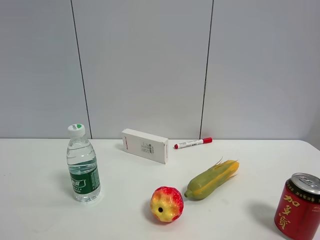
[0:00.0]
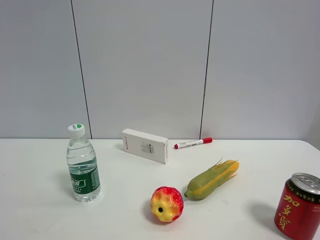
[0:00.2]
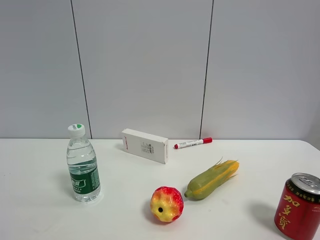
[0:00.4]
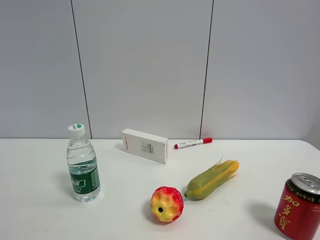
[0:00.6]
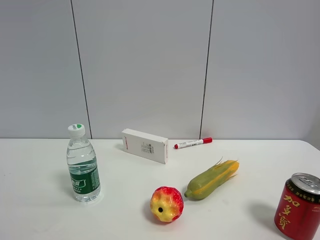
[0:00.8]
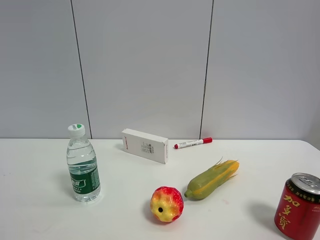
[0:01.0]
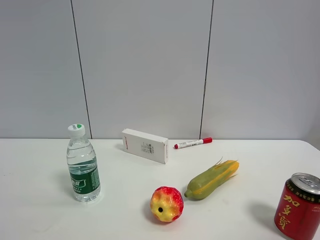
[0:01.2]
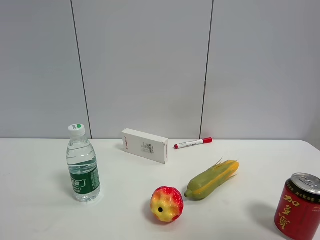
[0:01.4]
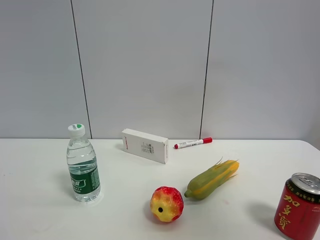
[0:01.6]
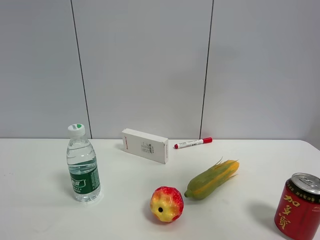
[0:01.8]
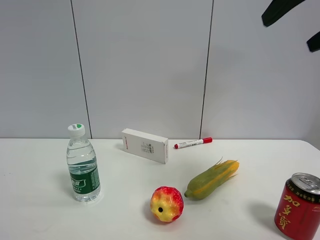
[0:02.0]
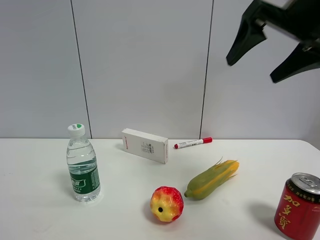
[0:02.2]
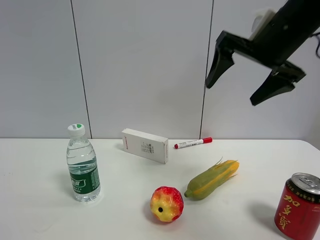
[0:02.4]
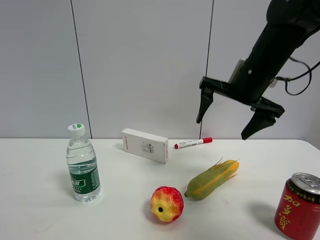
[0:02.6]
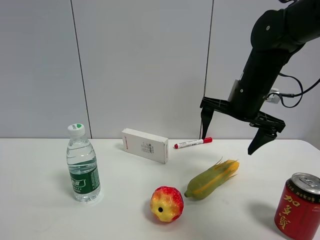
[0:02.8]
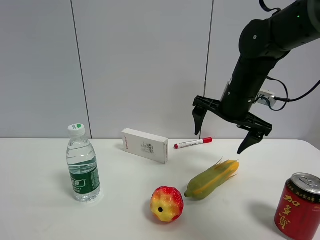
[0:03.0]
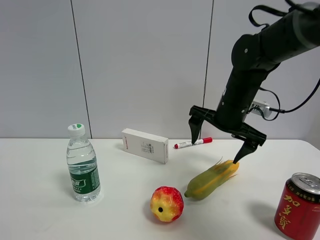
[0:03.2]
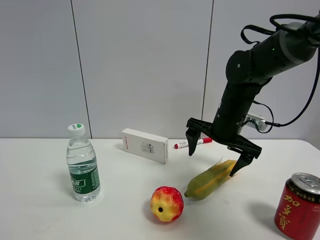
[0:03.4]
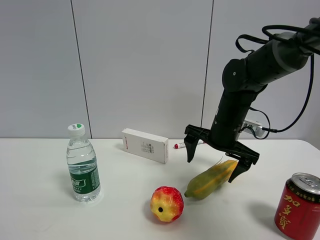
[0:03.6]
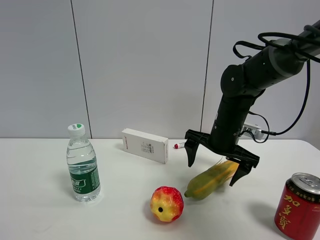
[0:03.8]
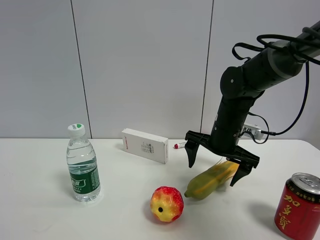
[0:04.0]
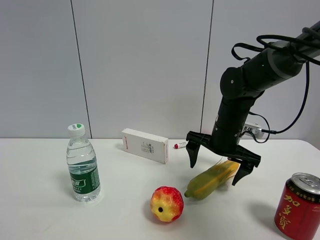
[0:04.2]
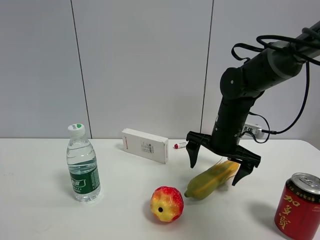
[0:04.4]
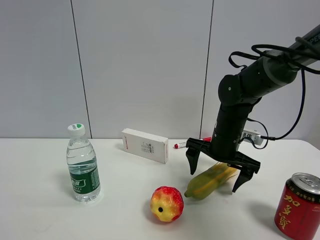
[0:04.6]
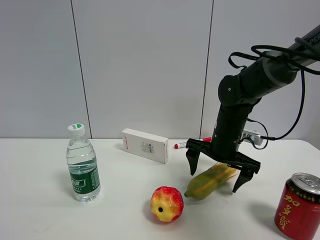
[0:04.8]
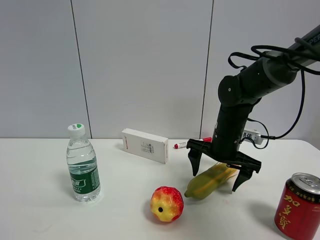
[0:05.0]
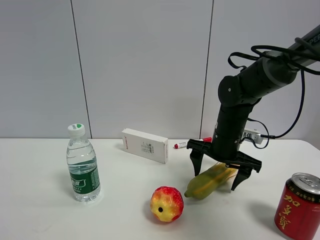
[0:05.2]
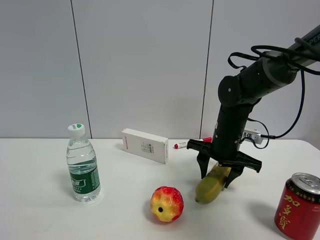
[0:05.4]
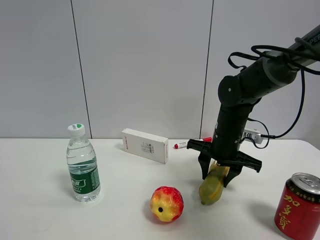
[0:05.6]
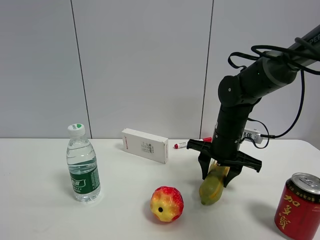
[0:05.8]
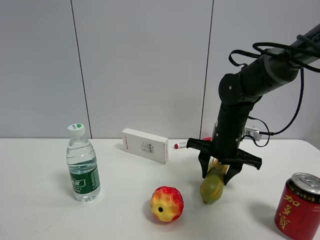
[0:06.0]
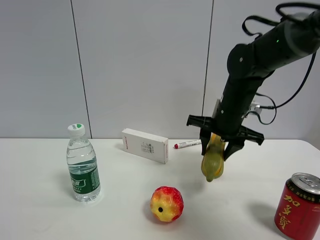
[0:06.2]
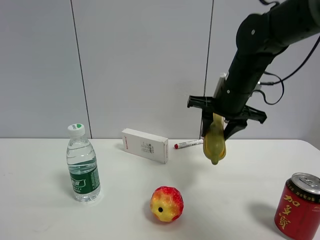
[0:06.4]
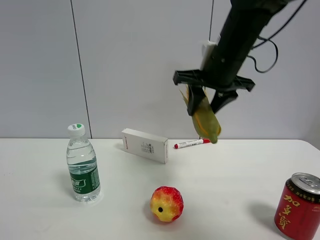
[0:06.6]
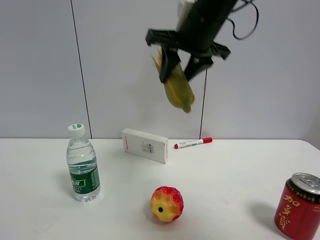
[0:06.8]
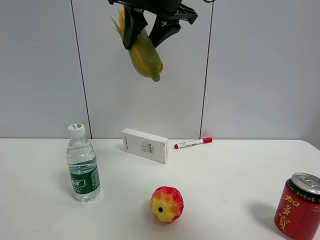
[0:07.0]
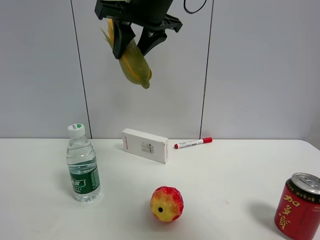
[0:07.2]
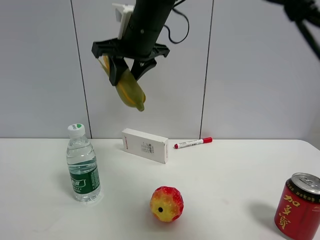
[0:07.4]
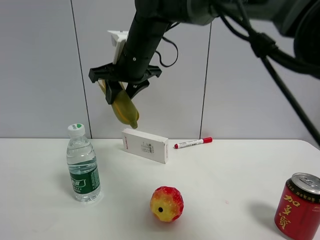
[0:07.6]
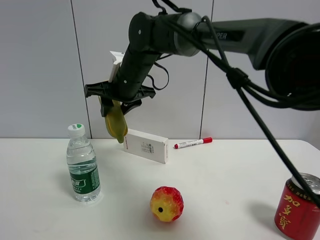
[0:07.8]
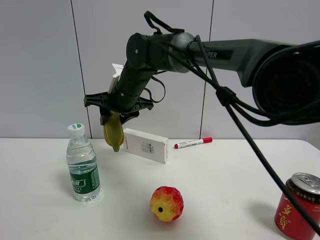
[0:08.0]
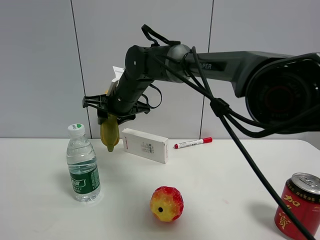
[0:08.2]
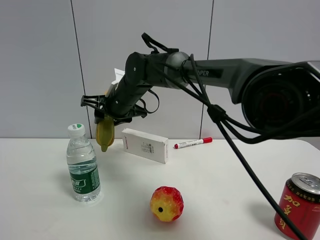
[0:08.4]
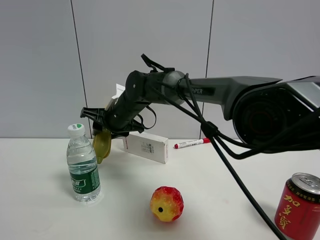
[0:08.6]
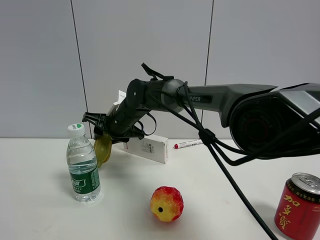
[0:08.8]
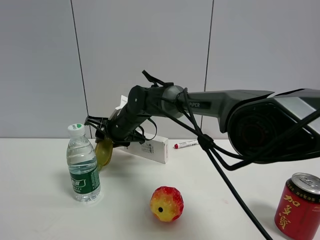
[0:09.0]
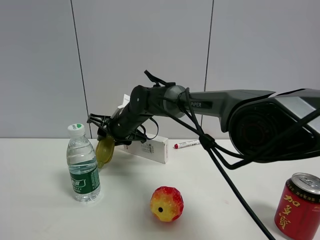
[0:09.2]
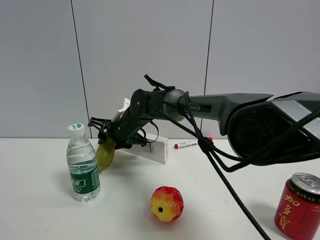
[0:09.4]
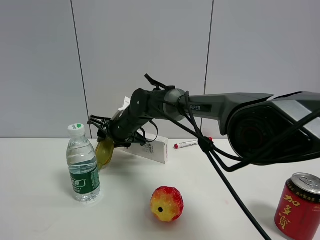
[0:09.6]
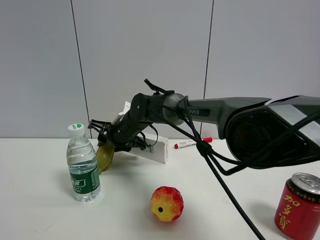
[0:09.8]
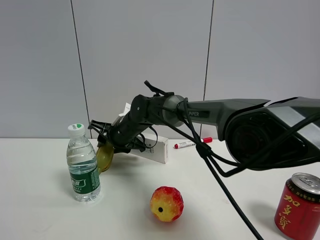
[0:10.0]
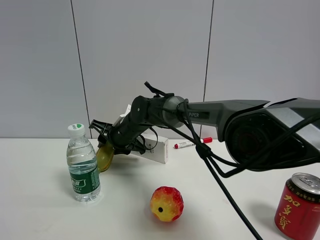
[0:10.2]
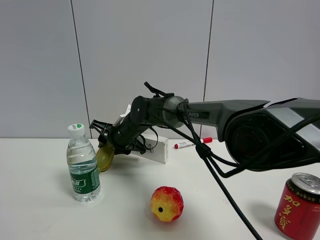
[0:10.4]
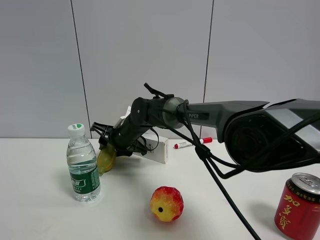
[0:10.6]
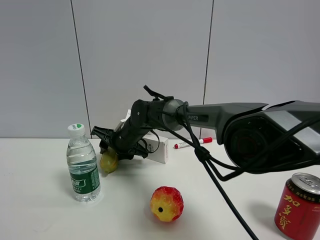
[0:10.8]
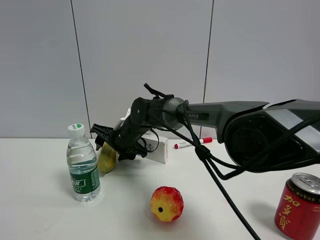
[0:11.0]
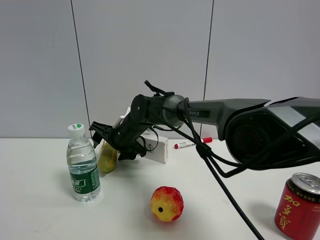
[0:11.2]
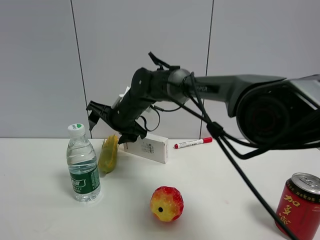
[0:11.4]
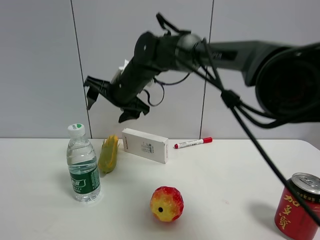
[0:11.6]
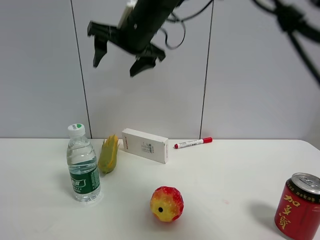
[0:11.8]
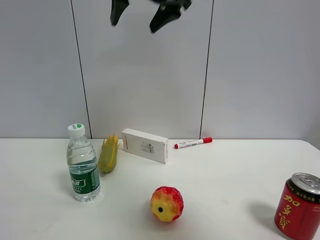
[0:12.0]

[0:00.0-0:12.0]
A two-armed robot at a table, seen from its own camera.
Task of the whole recording: the gripper move the object.
Step, 0:00.0 to 0:05.6: Grasp the corn with the right gripper.
Step, 0:05.8 to 0:11.2: Place the corn on the table with the right gripper.
0:00.0 to 0:01.6: The right gripper is displaced upward and forward by some 20 cm.
0:01.6 to 0:03.0: The right gripper goes approximately 35 cm forward and downward.
0:03.0 to 0:04.4: The right gripper shifts about 5 cm downward.
0:04.4 to 0:06.0: The right gripper closes.
0:06.0 to 0:07.6: The right gripper heads to the left and upward, covering approximately 25 cm.
0:07.6 to 0:09.0: The right gripper moves downward, approximately 15 cm.
0:09.0 to 0:10.4: There are only small adjustments of the grippers.
0:10.4 to 0:12.0: The right gripper is displaced upward by roughly 35 cm, and opens.

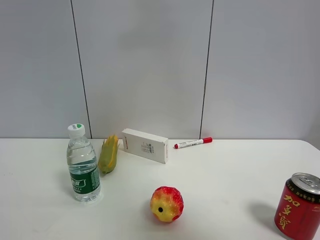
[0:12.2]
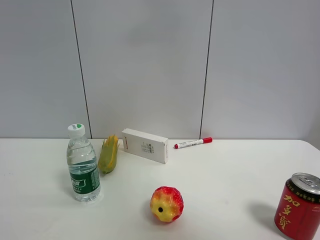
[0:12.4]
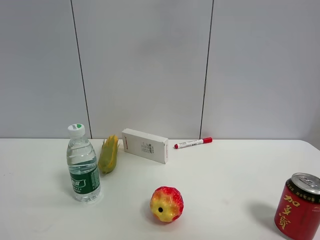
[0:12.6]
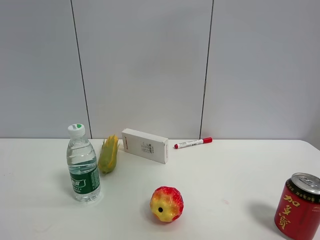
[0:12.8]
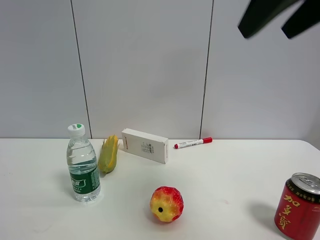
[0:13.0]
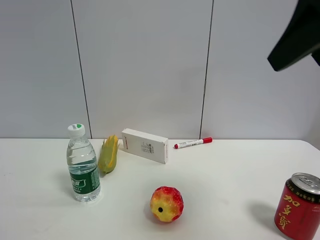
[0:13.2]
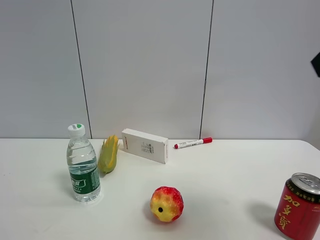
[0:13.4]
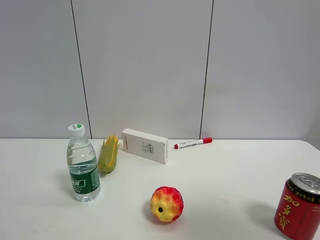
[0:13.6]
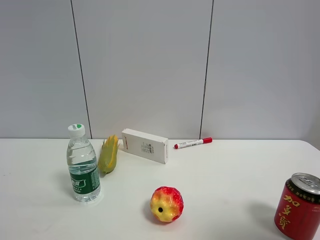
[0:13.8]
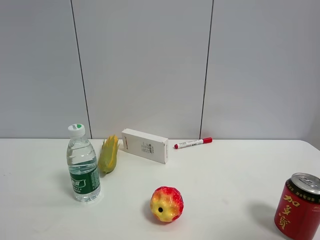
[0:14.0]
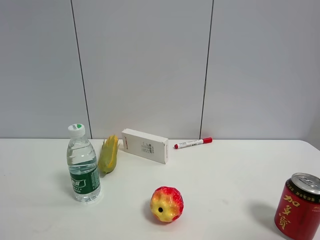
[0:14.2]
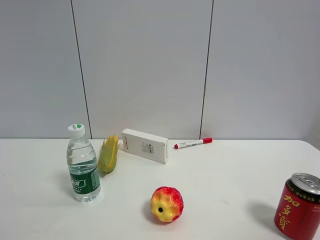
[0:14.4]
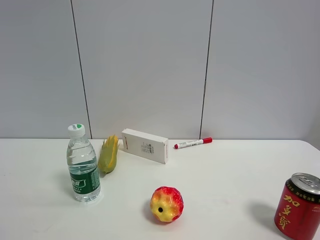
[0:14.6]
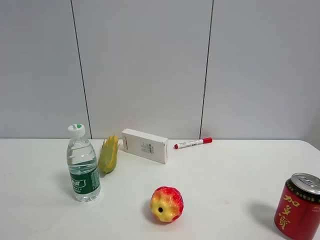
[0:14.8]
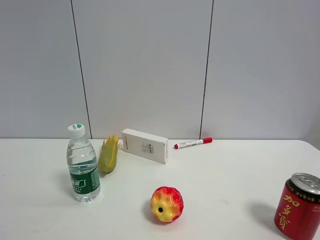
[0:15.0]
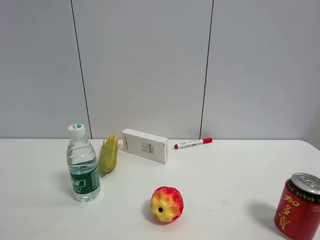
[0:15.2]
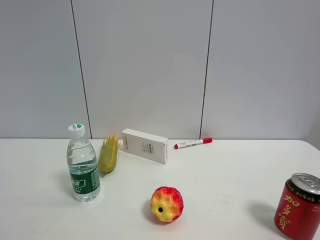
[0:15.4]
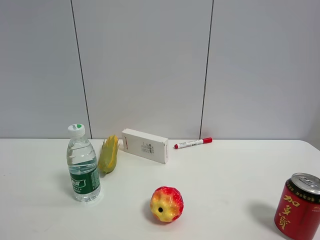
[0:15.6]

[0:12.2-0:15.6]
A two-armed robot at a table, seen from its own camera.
Task of the whole recording: the gripper move the object.
0:12.2 to 0:13.8: The right gripper heads backward, to the right and downward, covering roughly 35 cm.
0:13.8 to 0:15.6: The right gripper heads backward and downward, covering some 10 cm.

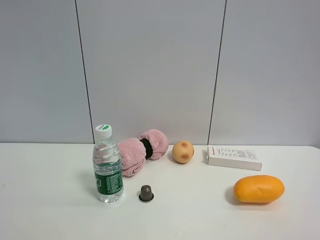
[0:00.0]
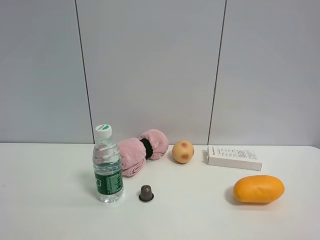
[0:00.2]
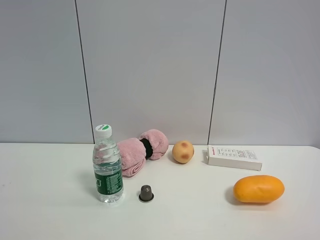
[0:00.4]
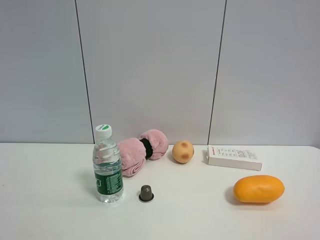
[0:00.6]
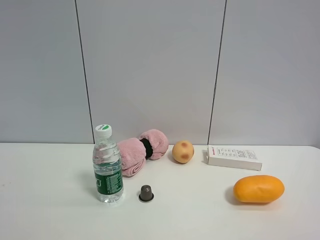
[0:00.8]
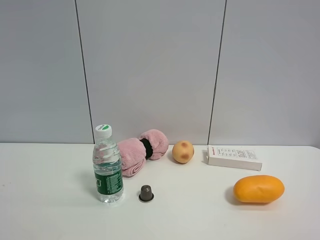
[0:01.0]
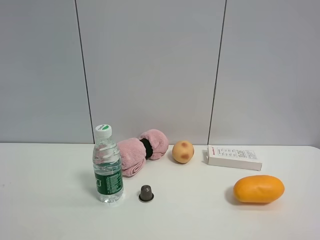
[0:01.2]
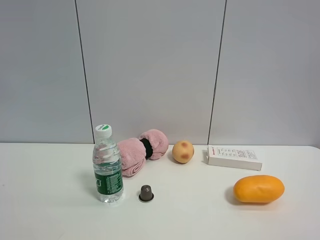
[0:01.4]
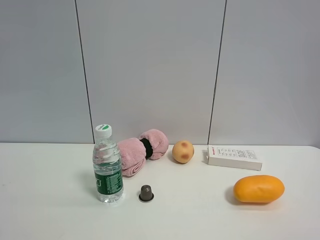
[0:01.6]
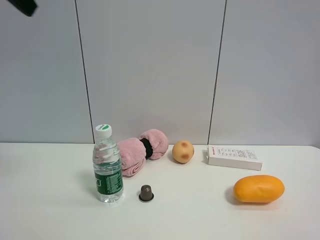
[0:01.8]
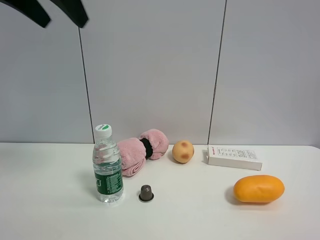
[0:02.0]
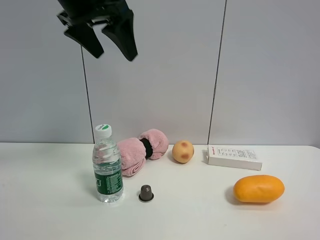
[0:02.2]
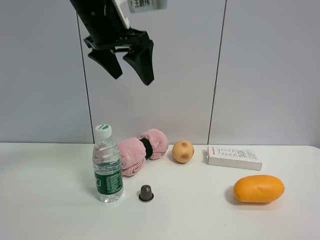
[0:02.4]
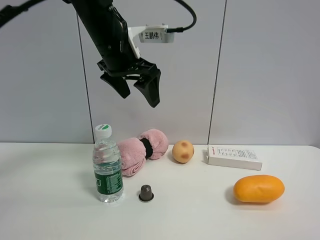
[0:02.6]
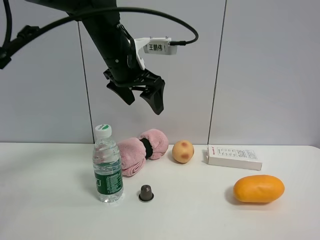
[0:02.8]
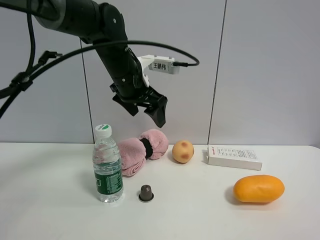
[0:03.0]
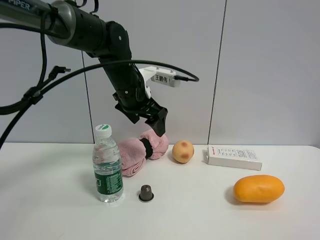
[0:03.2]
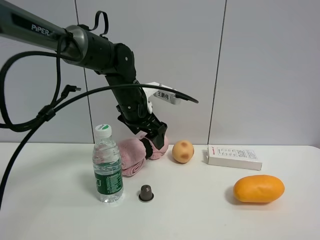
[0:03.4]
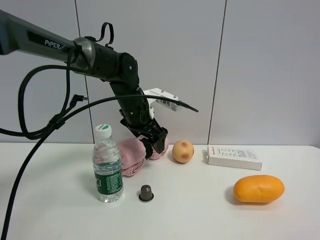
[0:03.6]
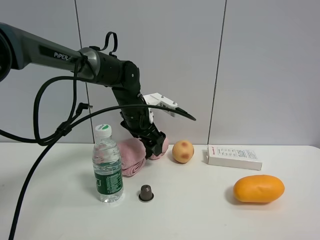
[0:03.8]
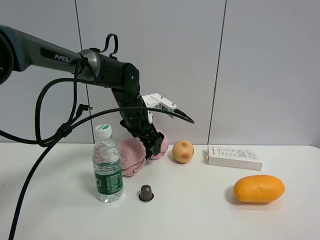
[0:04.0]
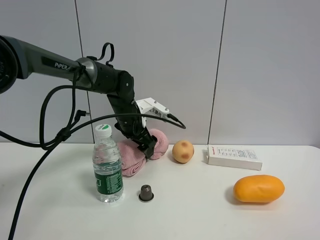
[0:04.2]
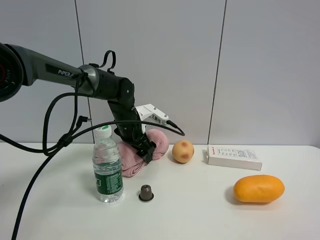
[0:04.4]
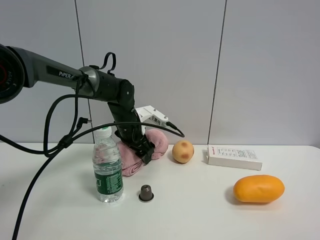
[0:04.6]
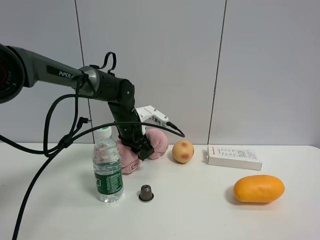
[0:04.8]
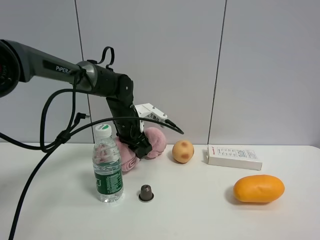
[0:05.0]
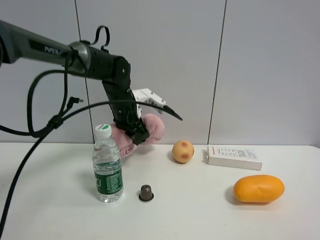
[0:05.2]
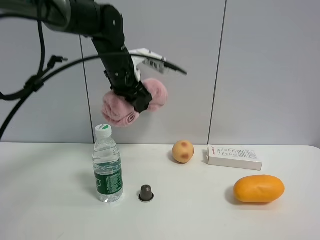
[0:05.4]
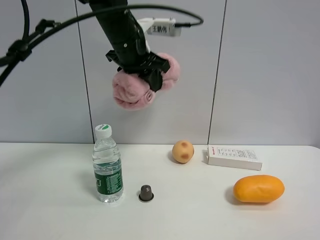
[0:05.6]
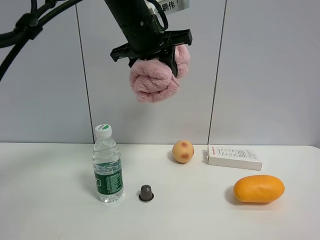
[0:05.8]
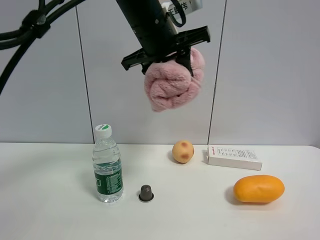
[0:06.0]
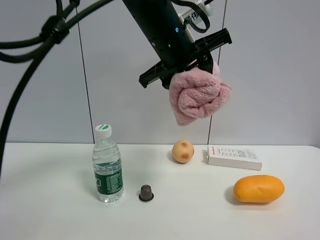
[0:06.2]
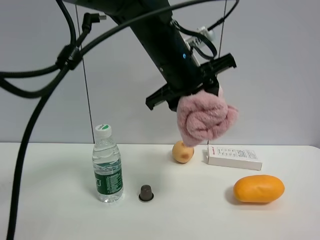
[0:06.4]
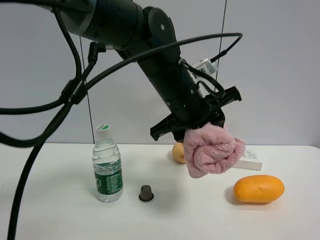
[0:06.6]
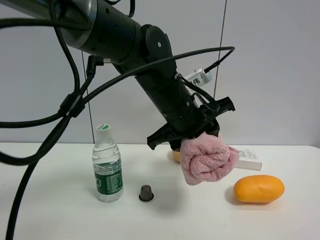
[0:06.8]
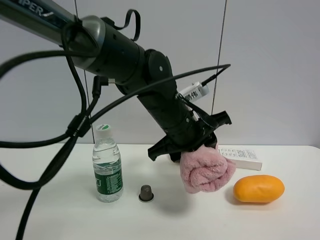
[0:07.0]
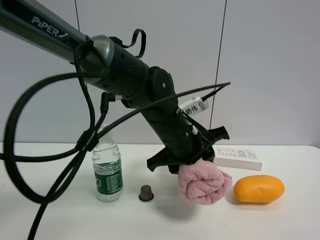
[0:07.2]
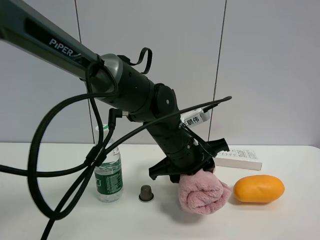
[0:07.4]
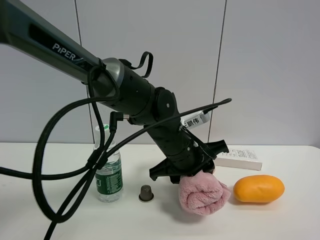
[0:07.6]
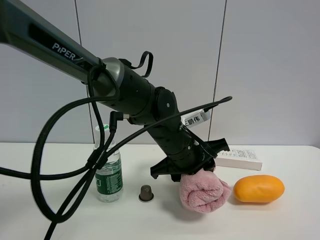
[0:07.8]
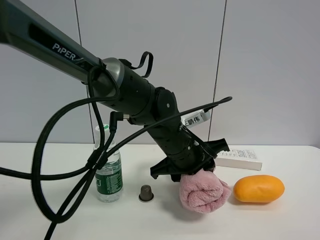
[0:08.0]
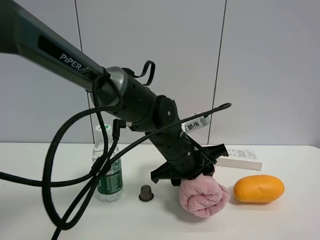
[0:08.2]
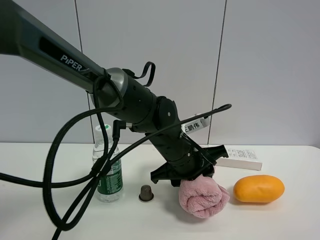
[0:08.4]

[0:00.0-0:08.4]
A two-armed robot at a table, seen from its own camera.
Task of the whole recording: the gripper move the object.
Step, 0:00.0 to 0:04.8: Grasp the pink towel with the left gripper.
0:01.4 to 0:02.8: The left gripper shifts roughly 40 cm forward, to the right and downward.
0:02.8 to 0:04.2: The left gripper is displaced downward and forward by about 15 cm.
0:04.2 to 0:05.6: The left gripper goes approximately 15 cm upward, and closes.
0:05.6 to 0:07.0: The left gripper goes about 20 cm downward, to the right and backward.
0:07.0 to 0:08.4: The left gripper moves downward, about 5 cm.
